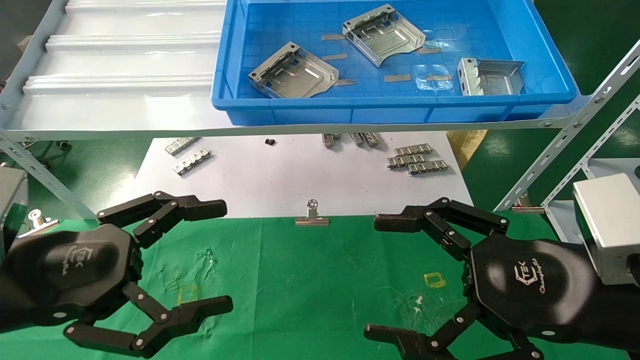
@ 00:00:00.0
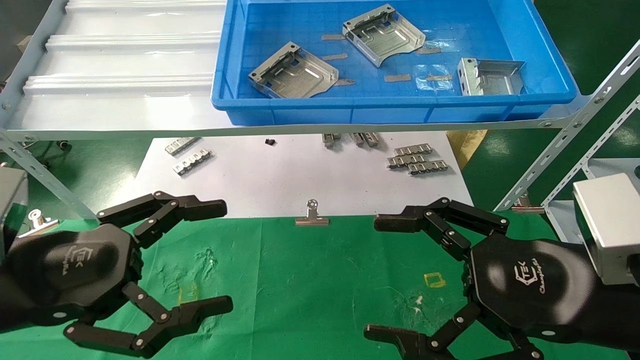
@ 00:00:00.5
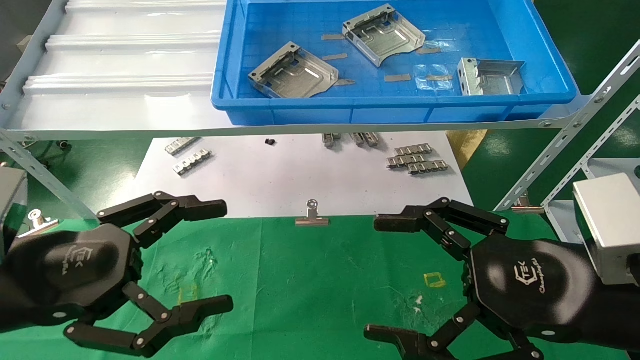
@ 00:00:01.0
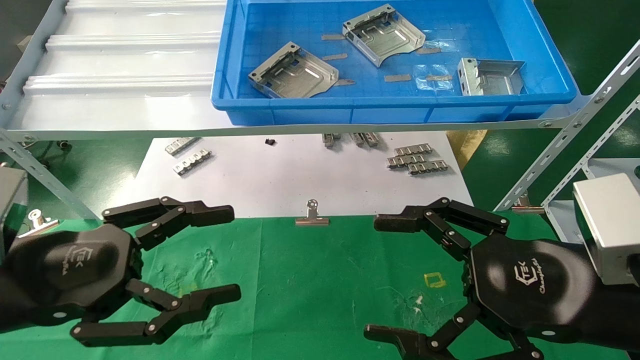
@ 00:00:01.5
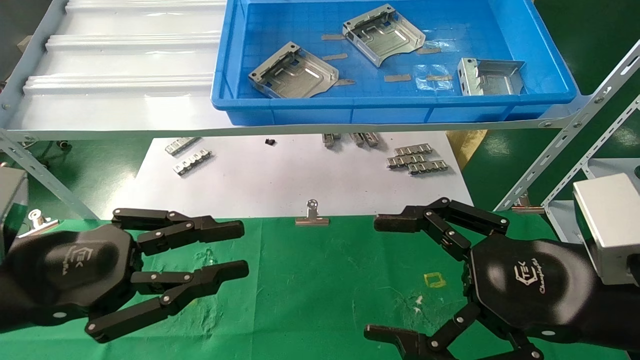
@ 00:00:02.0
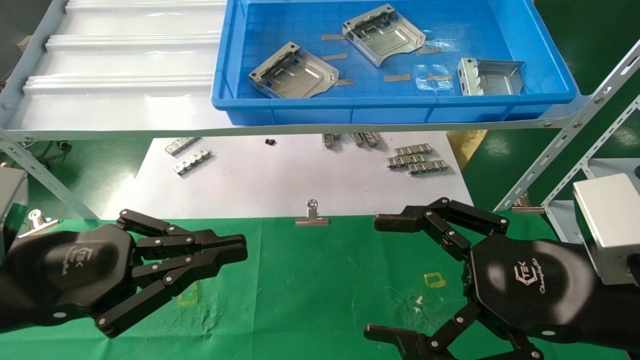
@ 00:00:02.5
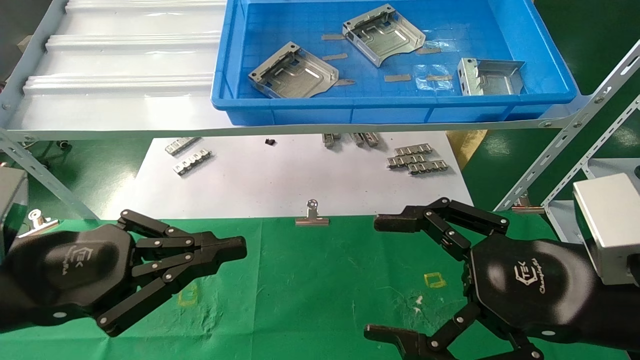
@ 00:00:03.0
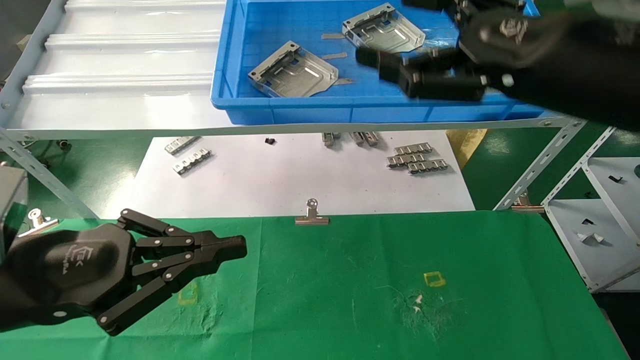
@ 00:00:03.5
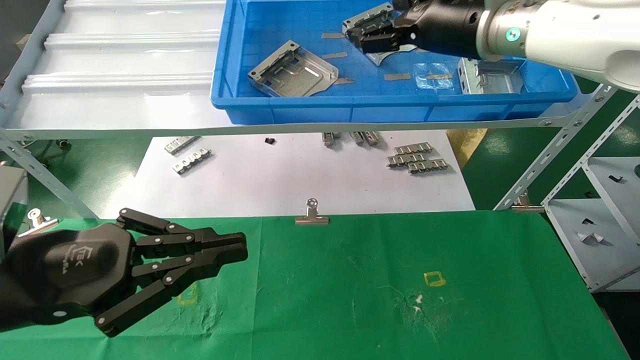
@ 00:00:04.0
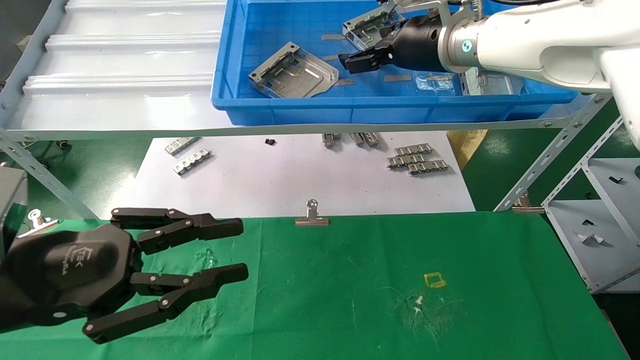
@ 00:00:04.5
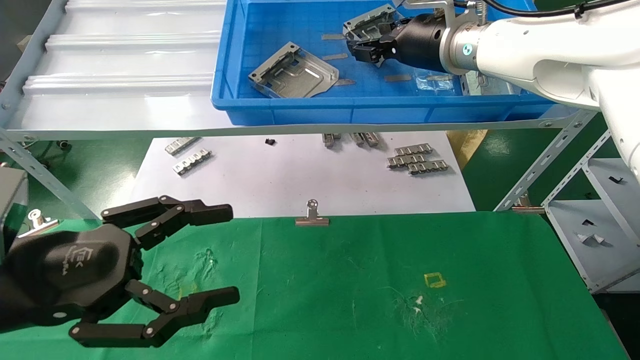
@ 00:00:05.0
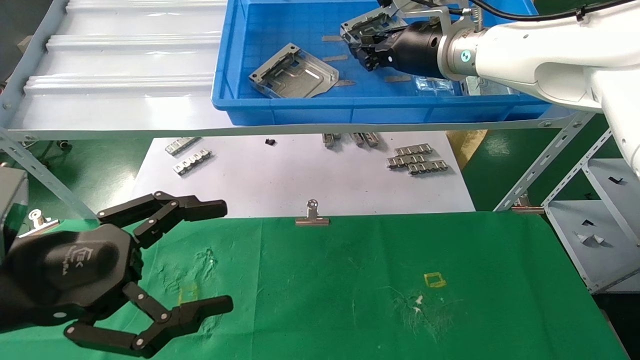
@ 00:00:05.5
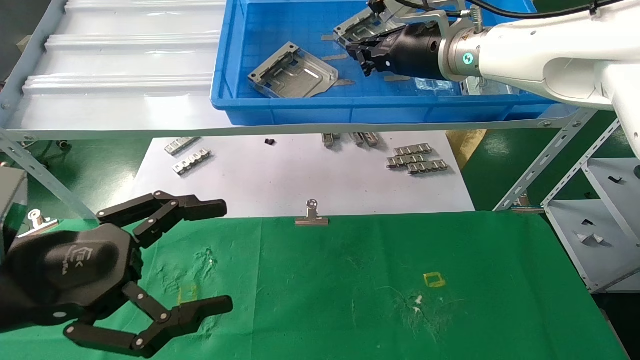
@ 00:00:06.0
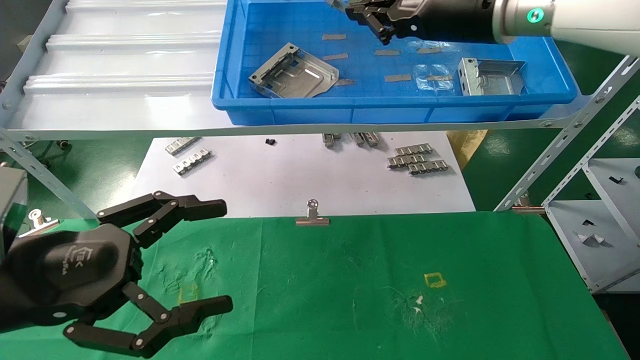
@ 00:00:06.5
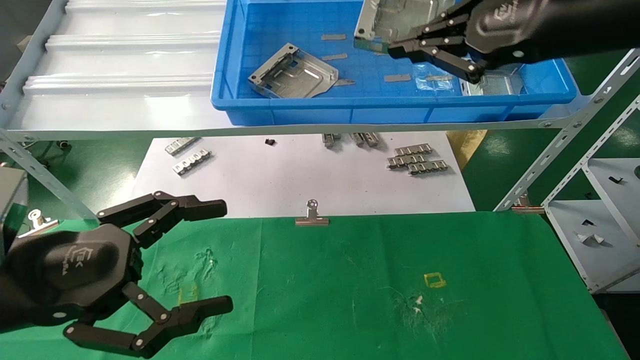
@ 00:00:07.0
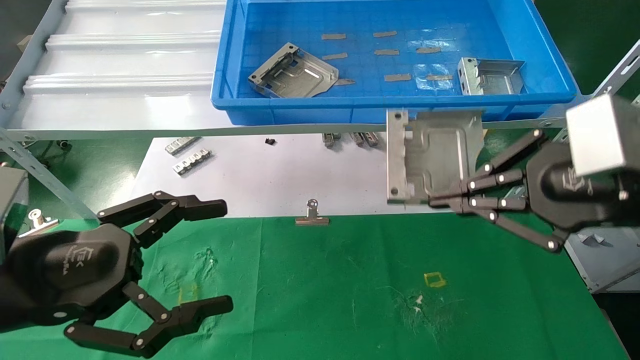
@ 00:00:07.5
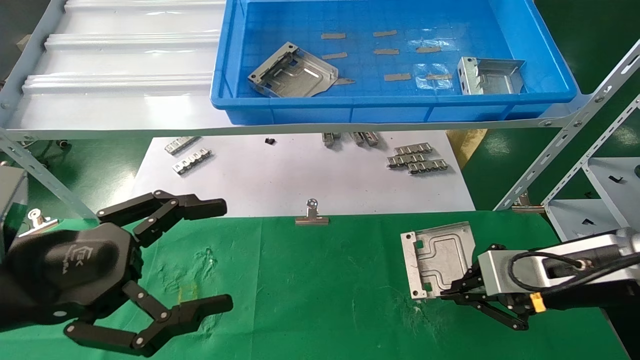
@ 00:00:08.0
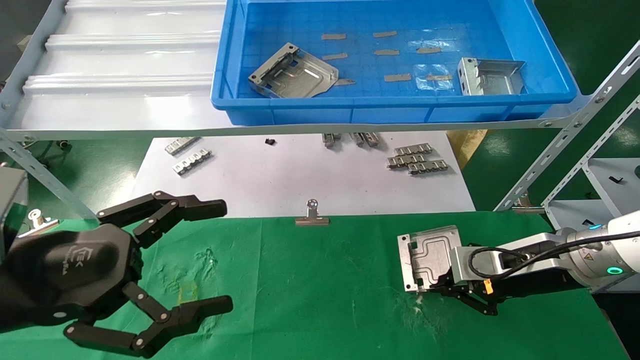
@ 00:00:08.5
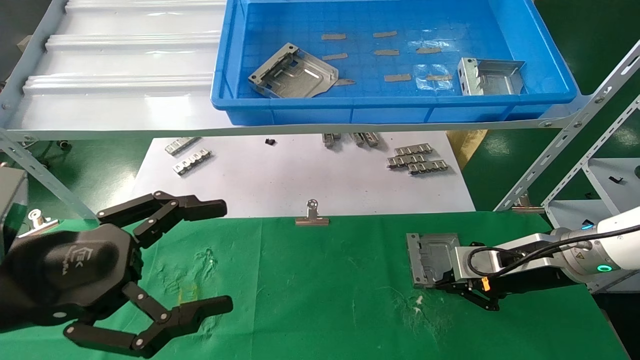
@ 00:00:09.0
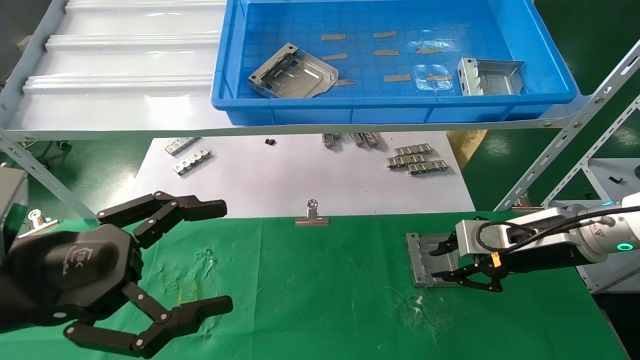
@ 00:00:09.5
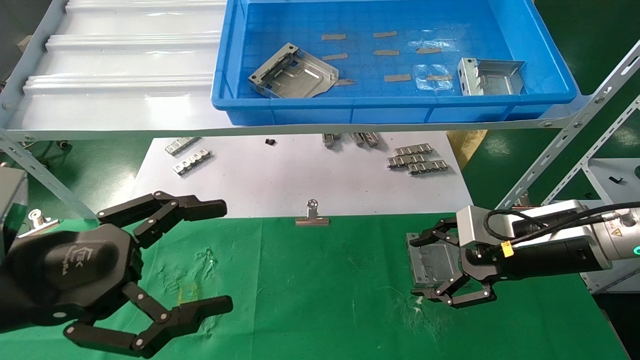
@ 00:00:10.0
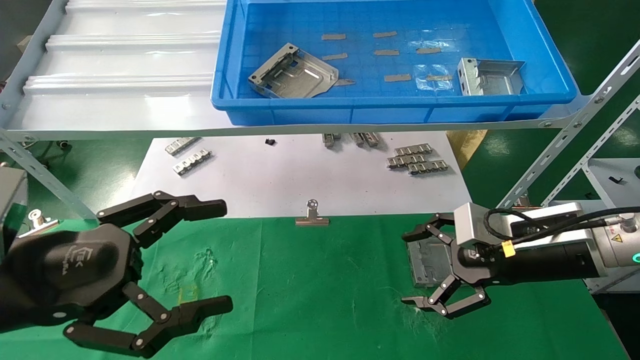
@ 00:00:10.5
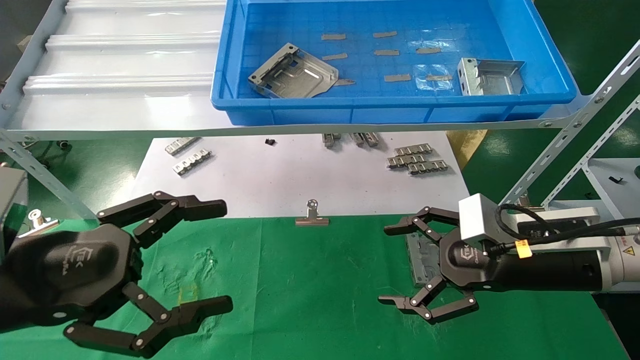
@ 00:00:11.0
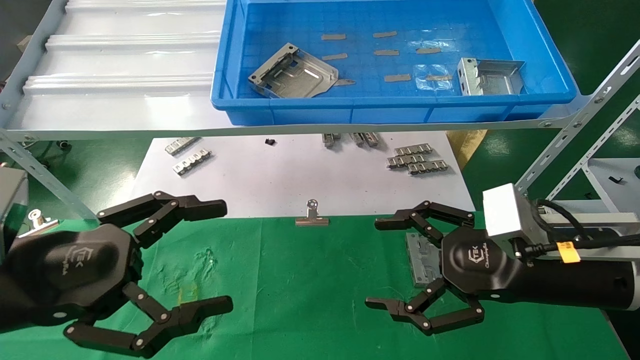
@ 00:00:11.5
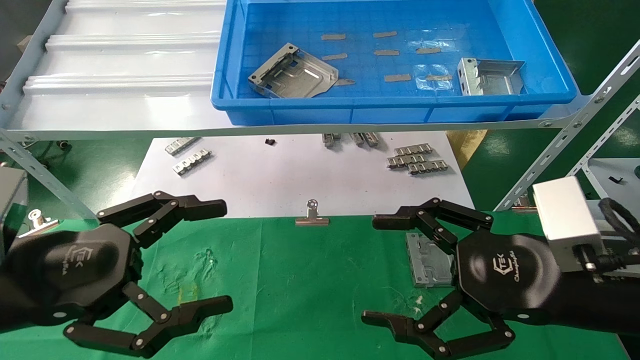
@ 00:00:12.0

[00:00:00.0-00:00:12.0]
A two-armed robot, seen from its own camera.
Task of the whole recording: use the mechanical arm to pick up the parts and place them on the table.
Step, 00:00:03.5 to 00:00:05.5: Pick up the hard drive bracket from the feeding area.
Step, 00:00:06.0 to 00:00:09.0: Place the hard drive bracket into the box.
00:00:00.0 to 00:00:02.0: The left gripper closes up.
00:00:02.0 to 00:00:04.0: The right gripper travels forward and upward by approximately 30 cm. Meanwhile the left gripper closes up.
00:00:04.0 to 00:00:06.0: The left gripper opens its fingers, while the right gripper closes.
00:00:06.0 to 00:00:08.0: The right gripper heads downward, backward and to the right, covering about 30 cm.
00:00:08.0 to 00:00:10.0: The right gripper opens.
00:00:10.0 to 00:00:12.0: The right gripper travels backward by roughly 10 cm, and opens its fingers.
